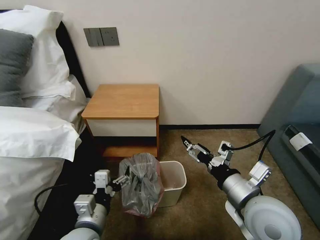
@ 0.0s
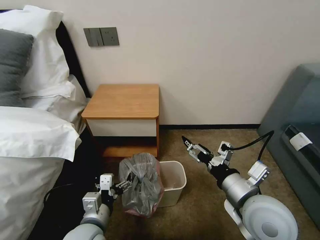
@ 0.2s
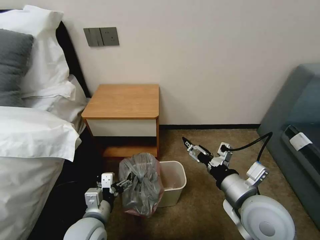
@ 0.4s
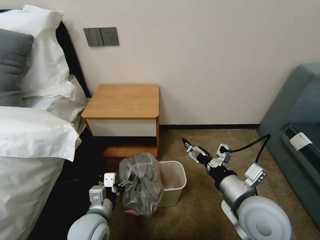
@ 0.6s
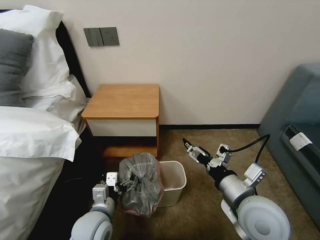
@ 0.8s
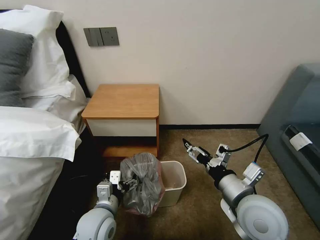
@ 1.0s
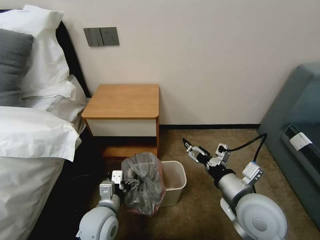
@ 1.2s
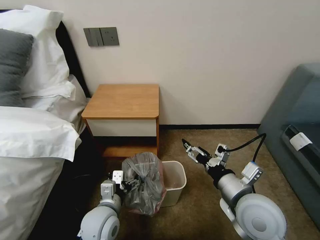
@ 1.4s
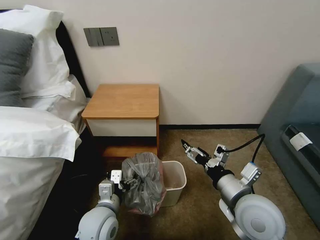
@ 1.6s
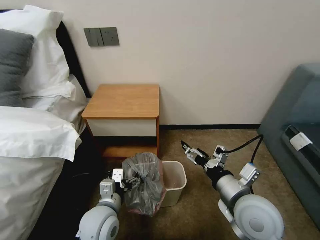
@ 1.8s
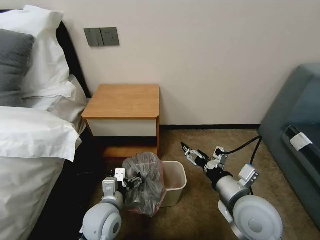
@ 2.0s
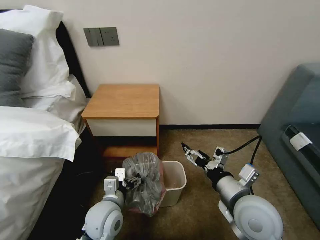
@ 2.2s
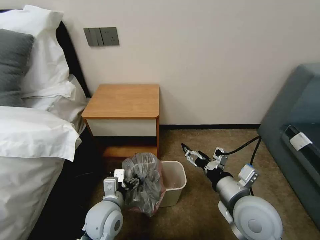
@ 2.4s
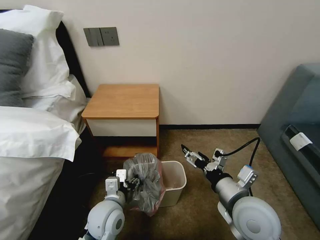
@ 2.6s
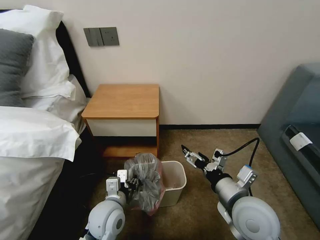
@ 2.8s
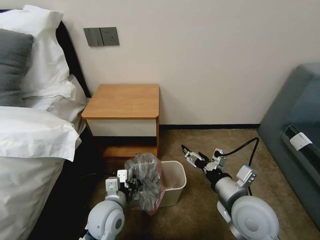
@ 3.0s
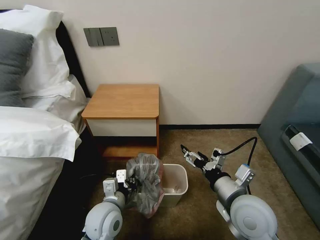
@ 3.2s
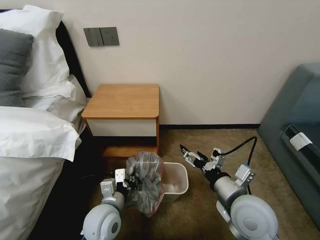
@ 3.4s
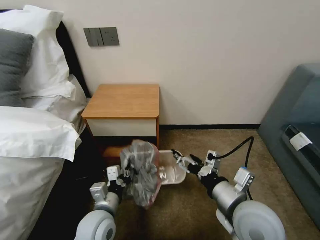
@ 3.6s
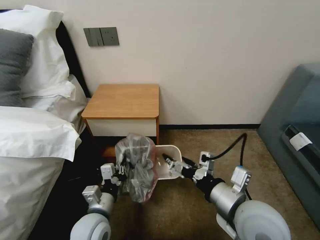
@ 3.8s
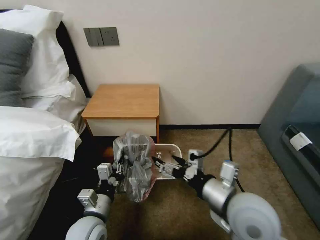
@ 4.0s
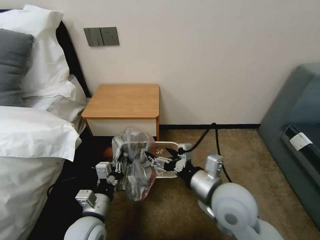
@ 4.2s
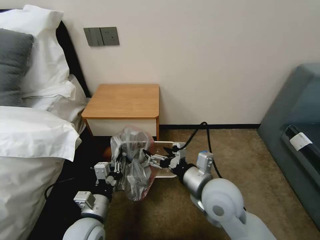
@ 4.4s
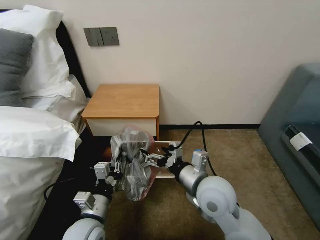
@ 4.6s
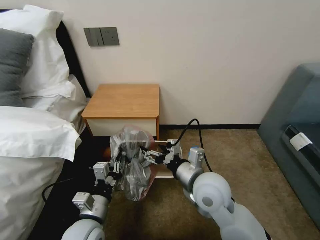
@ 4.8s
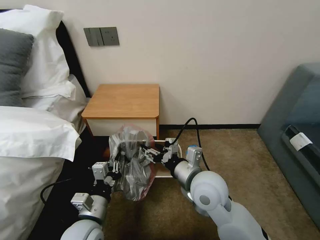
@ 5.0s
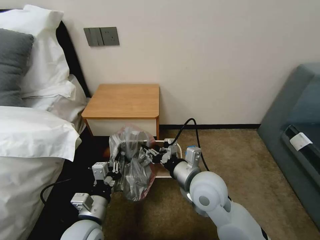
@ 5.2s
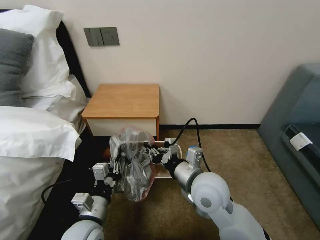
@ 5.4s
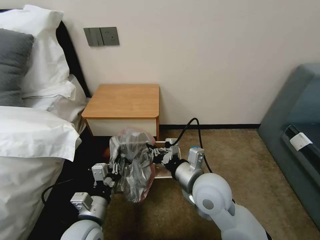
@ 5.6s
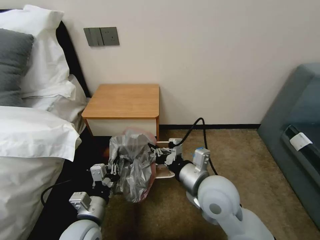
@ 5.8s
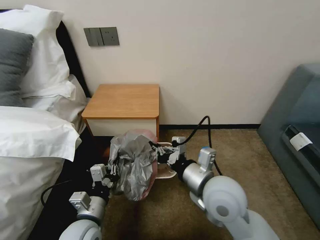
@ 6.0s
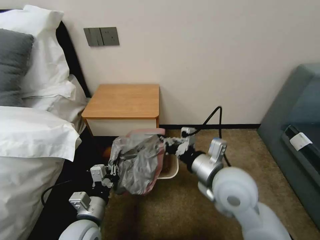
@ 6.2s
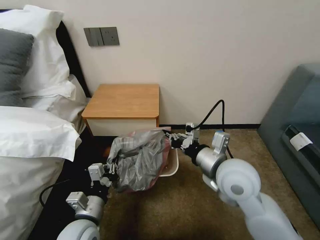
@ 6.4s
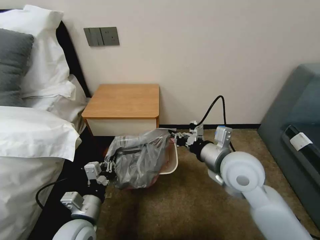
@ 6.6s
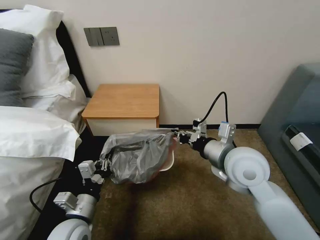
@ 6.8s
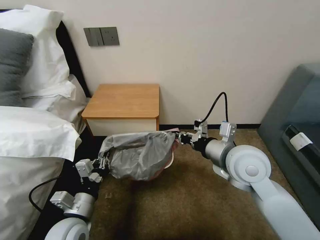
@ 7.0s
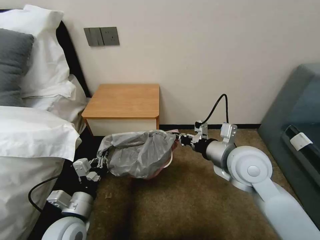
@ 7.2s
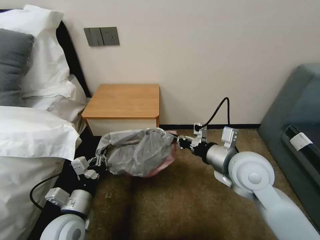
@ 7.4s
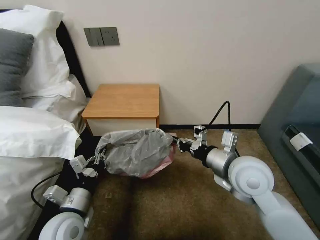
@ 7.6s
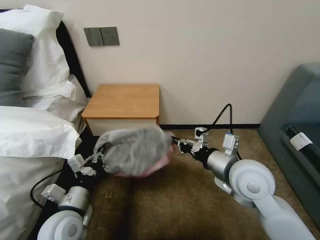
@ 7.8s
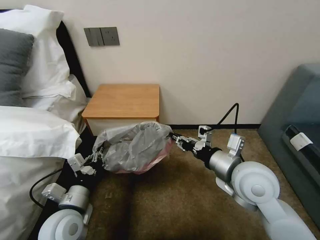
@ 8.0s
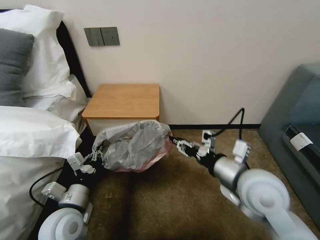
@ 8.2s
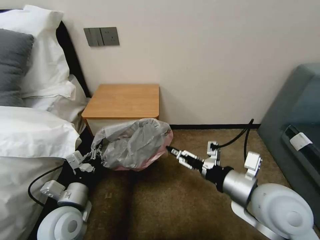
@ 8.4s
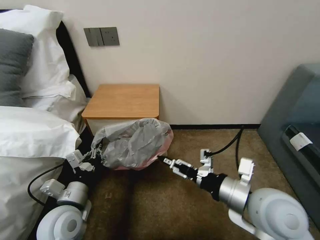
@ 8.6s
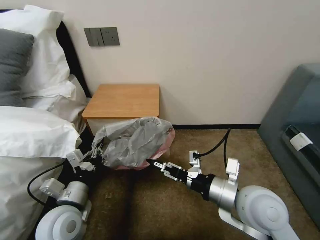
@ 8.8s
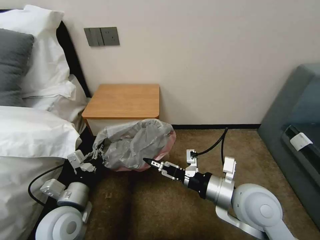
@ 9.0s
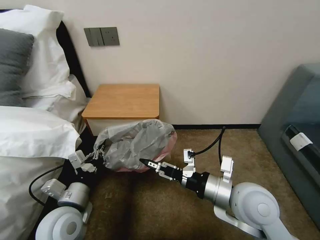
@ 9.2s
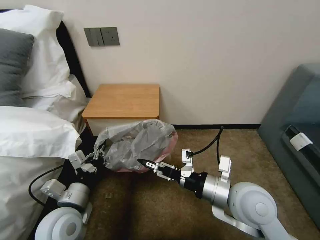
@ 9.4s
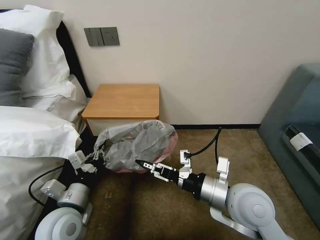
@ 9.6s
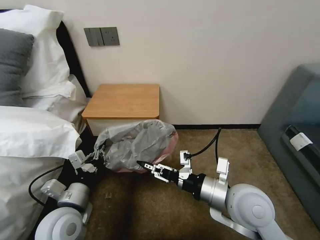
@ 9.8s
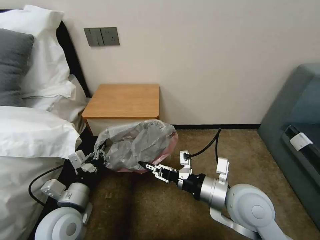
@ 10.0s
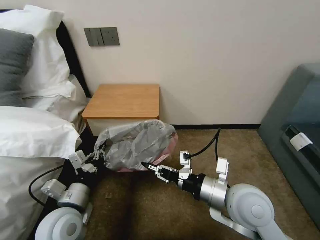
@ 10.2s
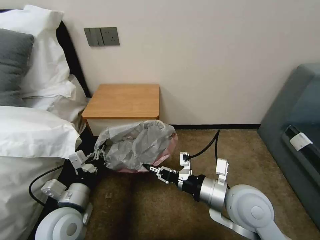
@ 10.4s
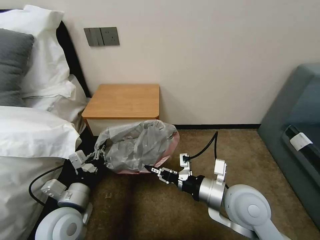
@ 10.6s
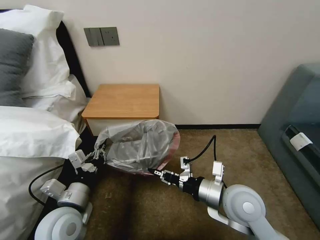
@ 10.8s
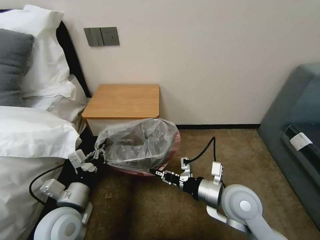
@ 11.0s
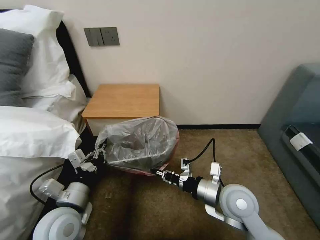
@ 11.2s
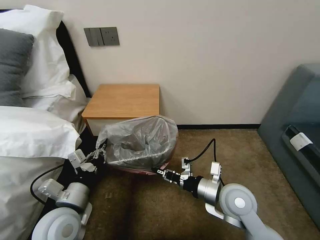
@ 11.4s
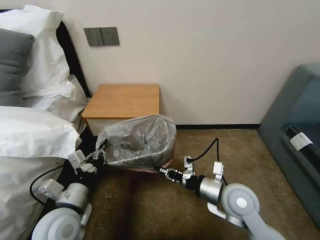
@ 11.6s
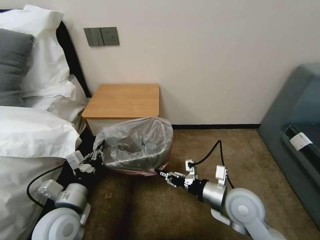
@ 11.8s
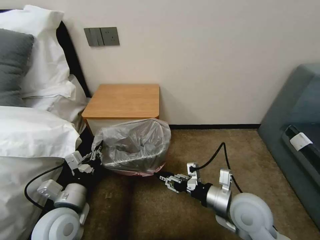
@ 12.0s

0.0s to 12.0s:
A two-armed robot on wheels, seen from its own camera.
Task of the whole recording: Pick up the garbage bag from the table and place it over the trash can.
0.0s to 1.6s: The left gripper goes about 5 cm forward.
1.6s to 3.0s: The left gripper closes up.
3.0s to 4.4s: The right gripper goes about 5 cm to the left; the left gripper changes place by roughly 5 cm.
4.4s to 6.0s: The right gripper closes its fingers.
6.0s to 7.6s: The left gripper moves approximately 5 cm, while the right gripper is displaced to the right by roughly 5 cm.
7.6s to 9.0s: The right gripper moves backward, approximately 5 cm, and opens its fingers.
9.0s to 10.4s: The right gripper closes its fingers.
10.4s to 12.0s: The right gripper is displaced downward by approximately 5 cm, and opens.

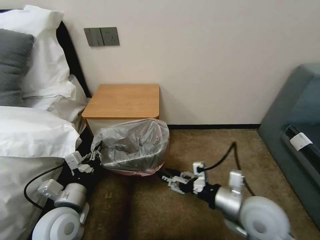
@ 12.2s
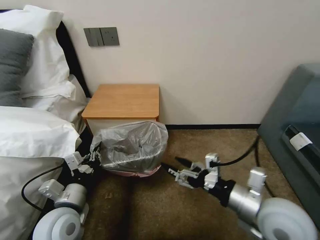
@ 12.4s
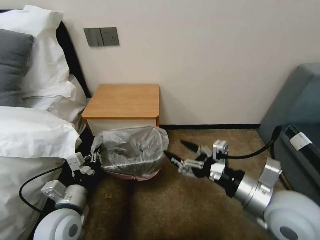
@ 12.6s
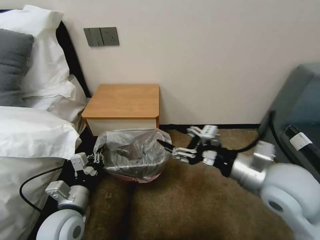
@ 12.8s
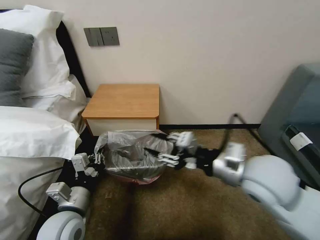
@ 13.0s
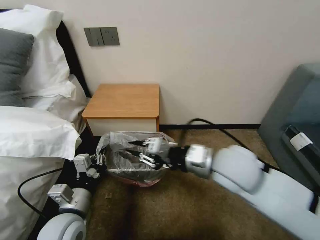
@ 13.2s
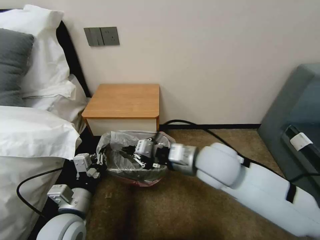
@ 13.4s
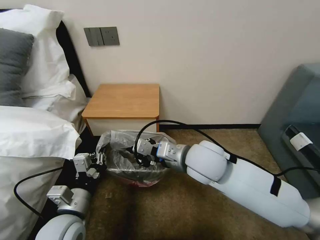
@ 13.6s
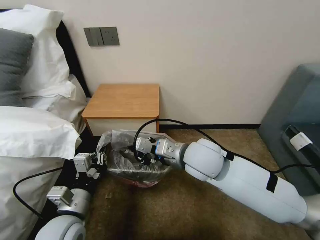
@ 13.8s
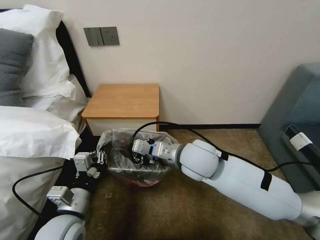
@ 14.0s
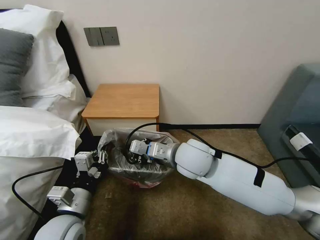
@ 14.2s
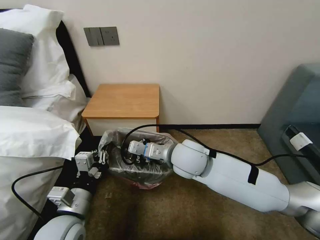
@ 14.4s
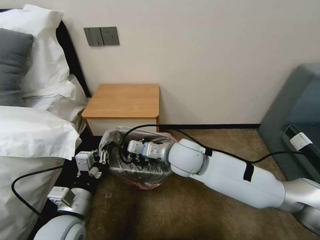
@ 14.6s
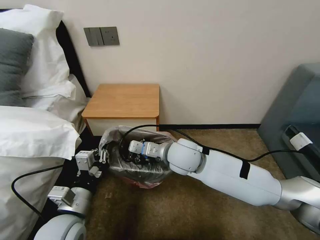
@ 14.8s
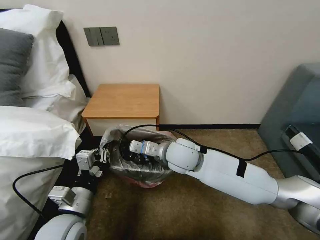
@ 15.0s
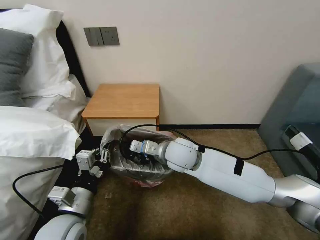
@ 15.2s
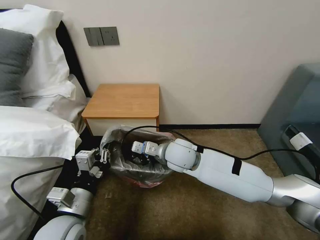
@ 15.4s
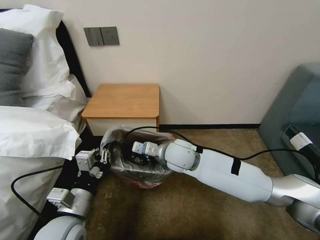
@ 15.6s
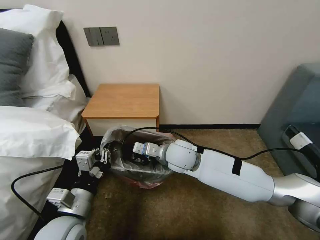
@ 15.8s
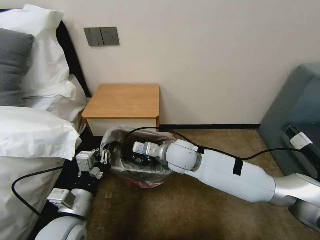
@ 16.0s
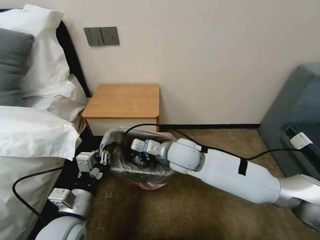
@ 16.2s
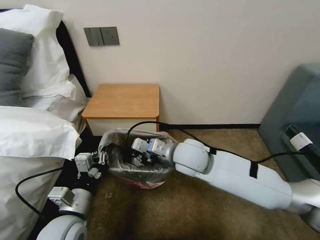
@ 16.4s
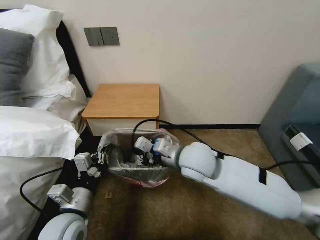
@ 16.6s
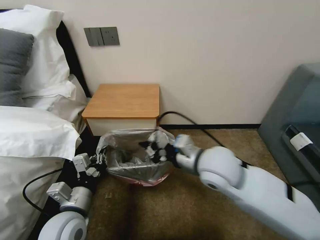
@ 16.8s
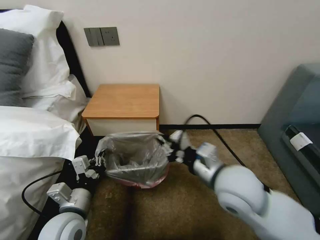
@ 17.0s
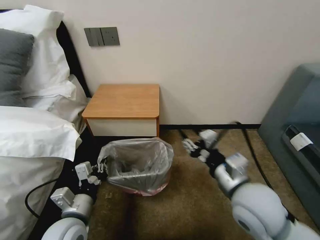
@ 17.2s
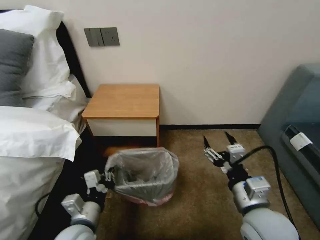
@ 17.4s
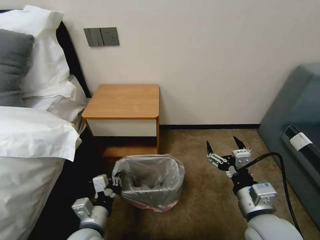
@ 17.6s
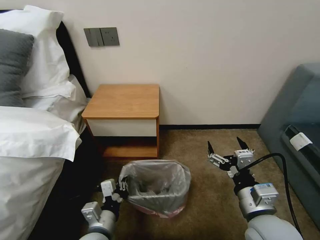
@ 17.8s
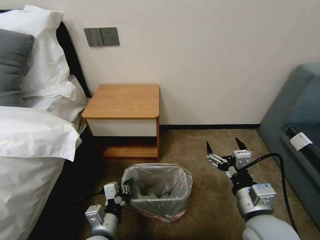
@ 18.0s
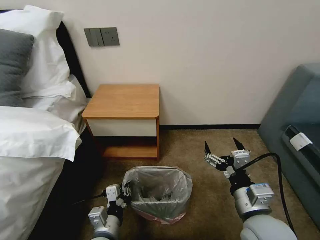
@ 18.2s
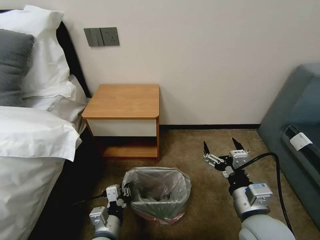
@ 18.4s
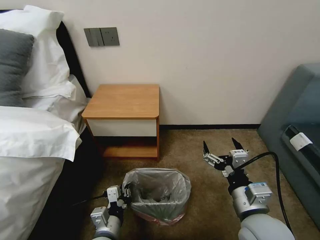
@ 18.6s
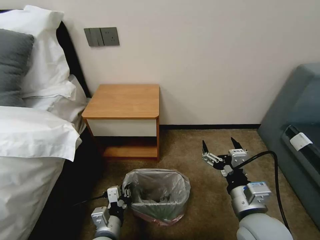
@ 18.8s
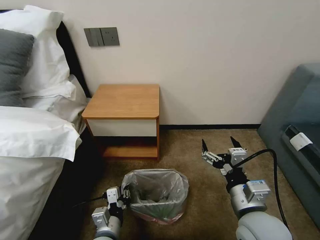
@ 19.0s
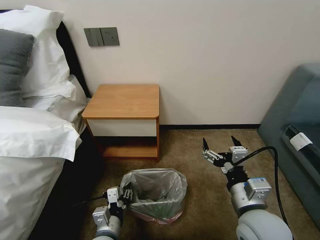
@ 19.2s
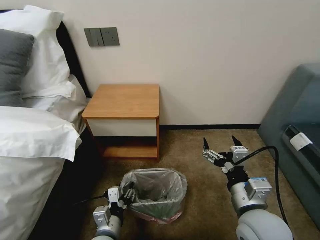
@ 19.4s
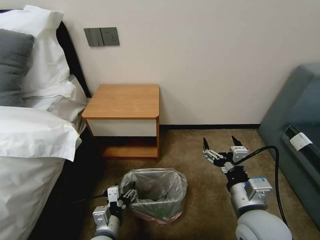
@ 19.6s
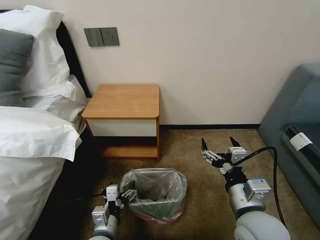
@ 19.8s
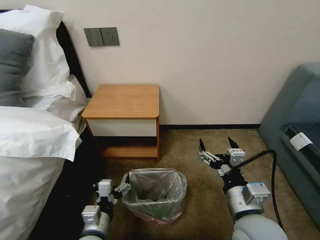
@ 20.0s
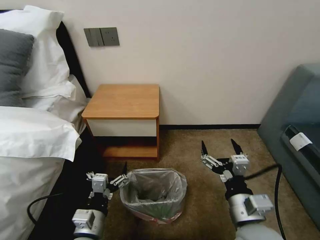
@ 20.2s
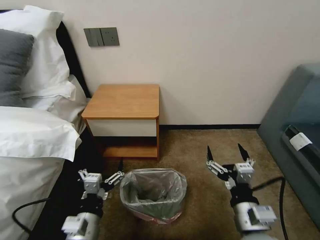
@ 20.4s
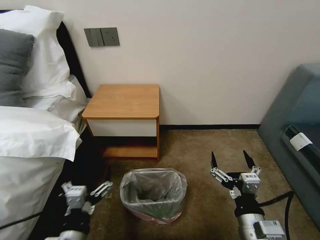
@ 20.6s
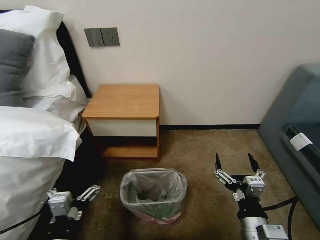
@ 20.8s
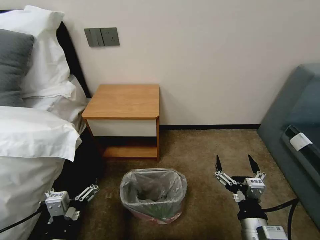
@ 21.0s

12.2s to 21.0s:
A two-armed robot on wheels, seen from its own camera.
Task of the whole recording: Pick up the garbage bag from the table and place it over the trash can.
12.2s to 13.6s: The right gripper heads to the left, forward and upward, covering about 20 cm, and closes up.
13.6s to 15.2s: The right gripper goes some 10 cm downward and forward.
15.2s to 16.6s: The right gripper ends up approximately 5 cm from where it was.
16.6s to 18.0s: The right gripper travels backward and to the right by roughly 20 cm, and opens up, while the left gripper travels downward and to the right by some 10 cm.
18.0s to 19.6s: The left gripper opens its fingers.
19.6s to 21.0s: The right gripper heads downward and backward, covering roughly 10 cm; the left gripper heads upward, backward and to the left, covering roughly 15 cm.

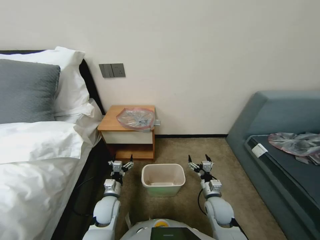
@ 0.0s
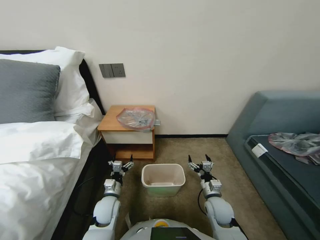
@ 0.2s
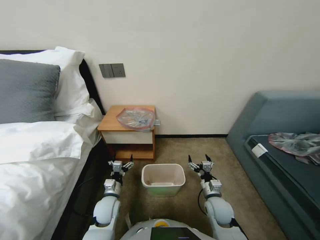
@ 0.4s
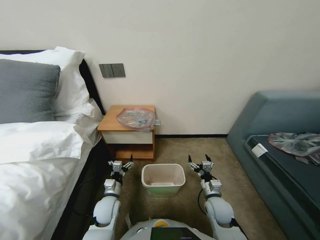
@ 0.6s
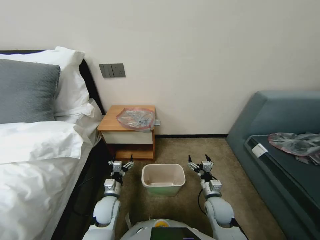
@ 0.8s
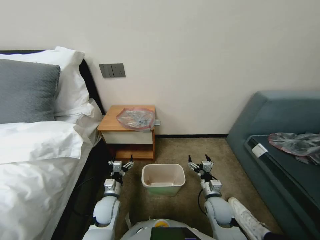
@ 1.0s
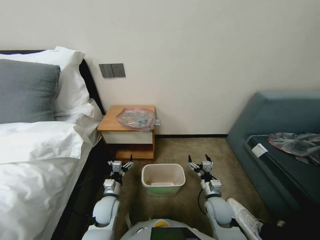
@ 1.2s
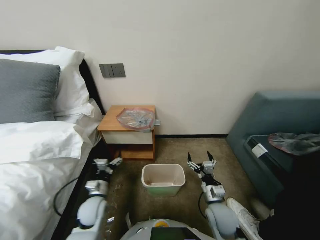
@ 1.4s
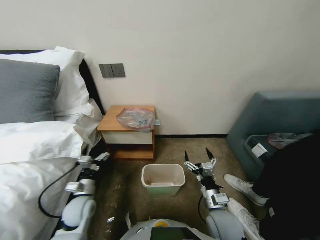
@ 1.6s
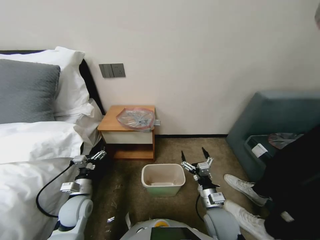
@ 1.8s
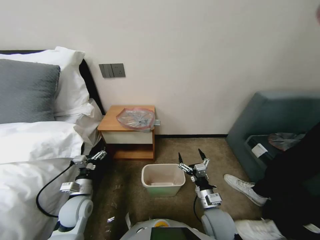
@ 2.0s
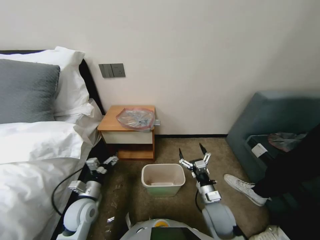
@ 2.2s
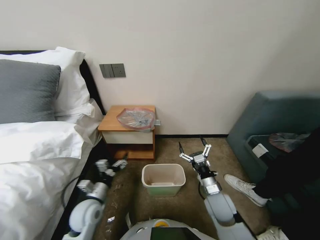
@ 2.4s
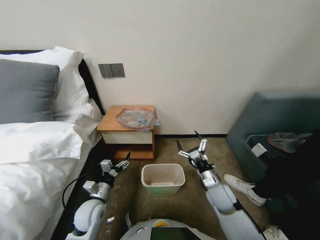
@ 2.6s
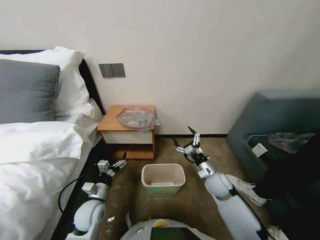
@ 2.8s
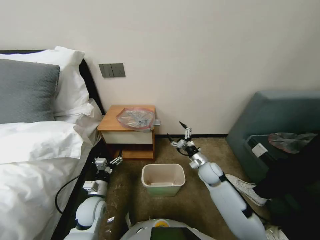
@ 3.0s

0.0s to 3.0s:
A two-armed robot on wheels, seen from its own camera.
Task of the whole recording: Pick up the garbage bag from the table and place it over the trash can.
1.6s to 3.0s: The right gripper heads forward, covering about 15 cm.
